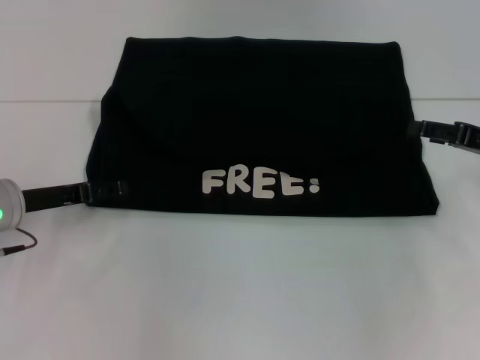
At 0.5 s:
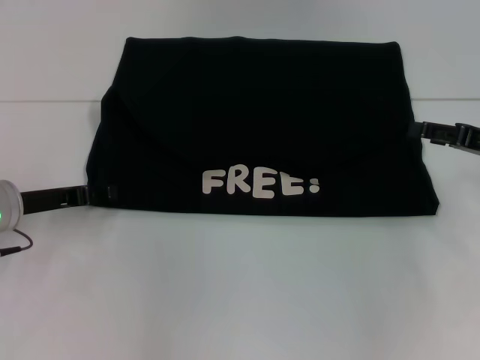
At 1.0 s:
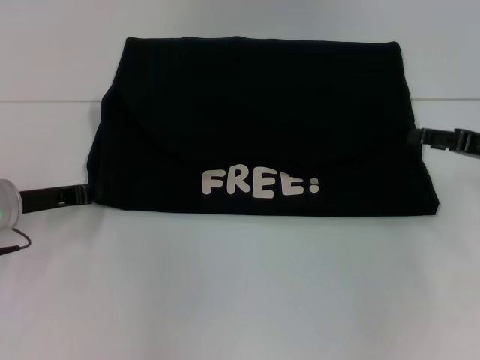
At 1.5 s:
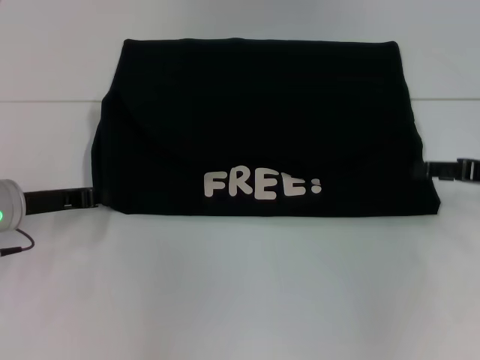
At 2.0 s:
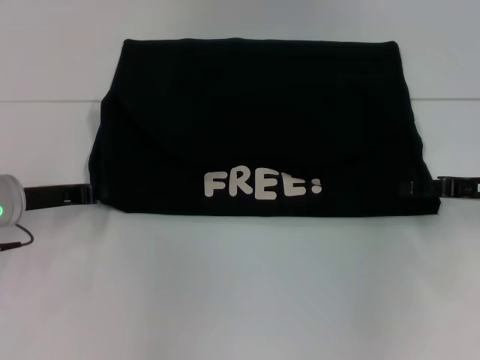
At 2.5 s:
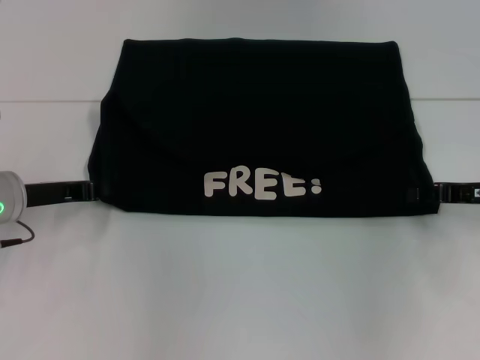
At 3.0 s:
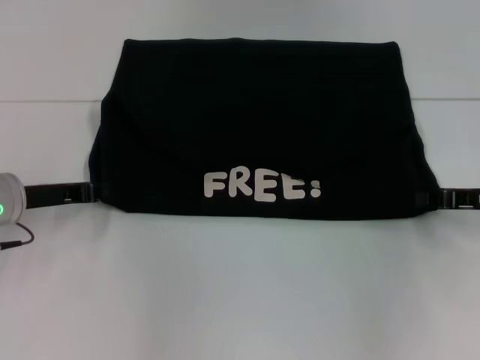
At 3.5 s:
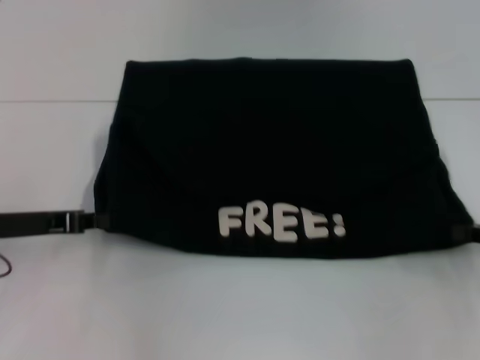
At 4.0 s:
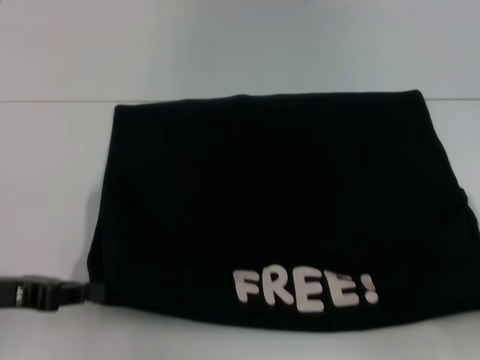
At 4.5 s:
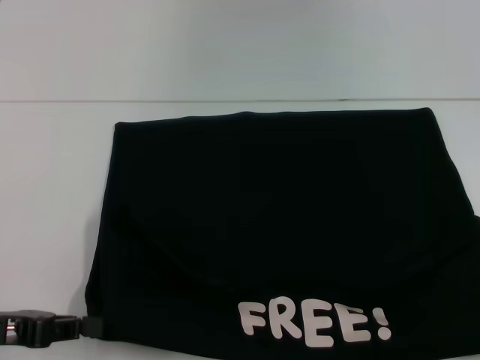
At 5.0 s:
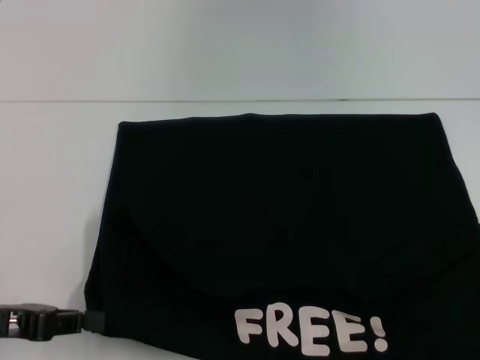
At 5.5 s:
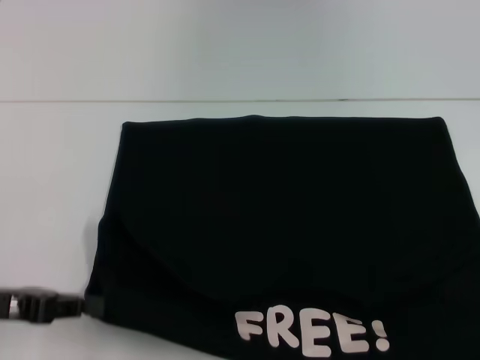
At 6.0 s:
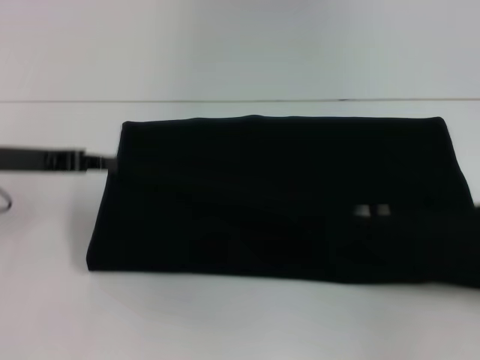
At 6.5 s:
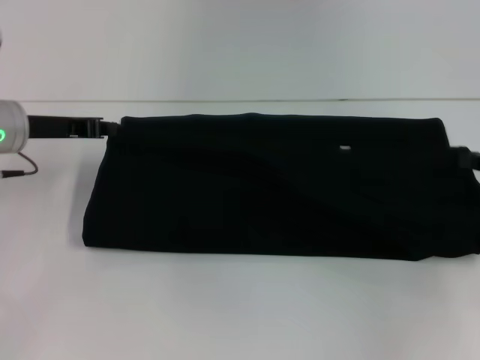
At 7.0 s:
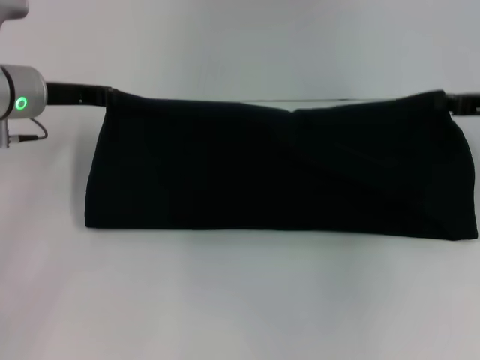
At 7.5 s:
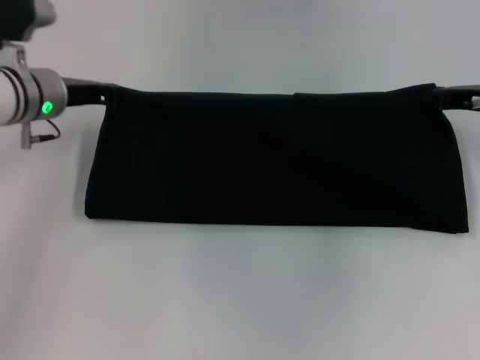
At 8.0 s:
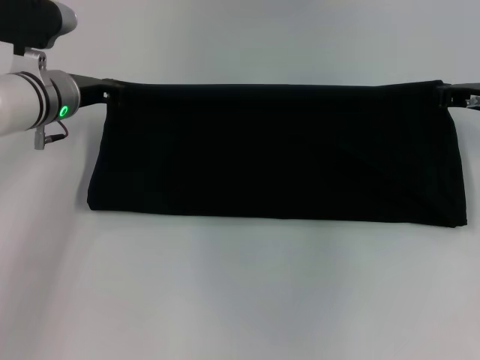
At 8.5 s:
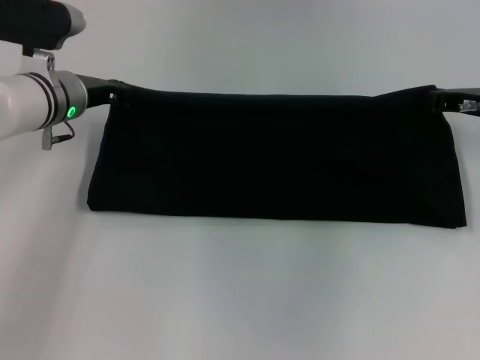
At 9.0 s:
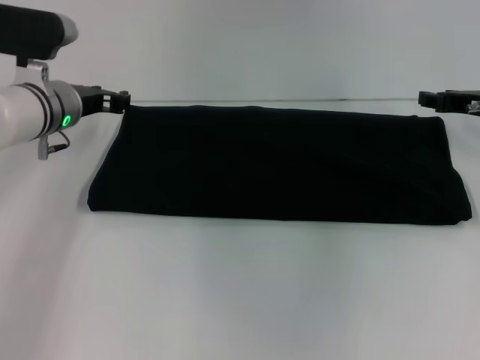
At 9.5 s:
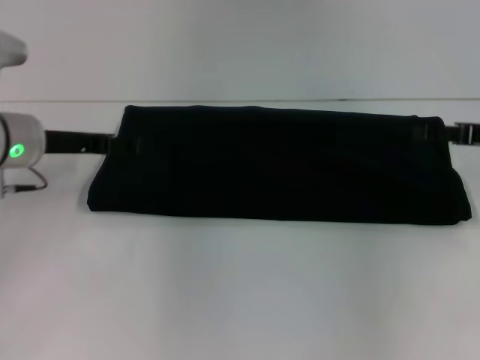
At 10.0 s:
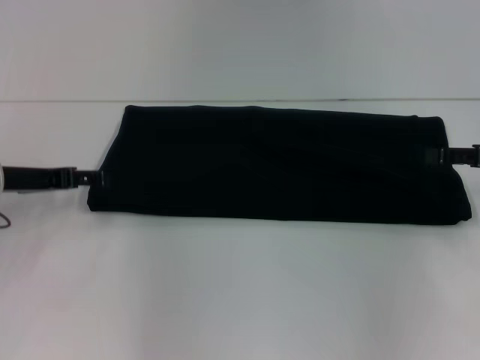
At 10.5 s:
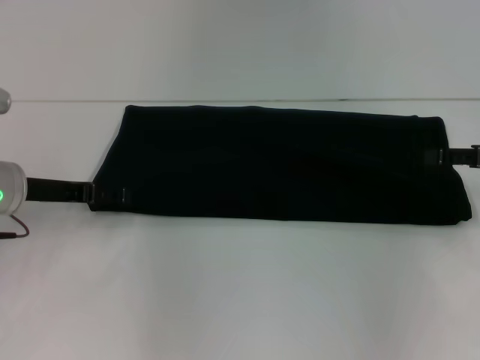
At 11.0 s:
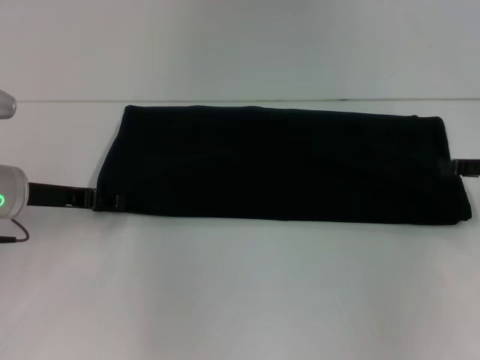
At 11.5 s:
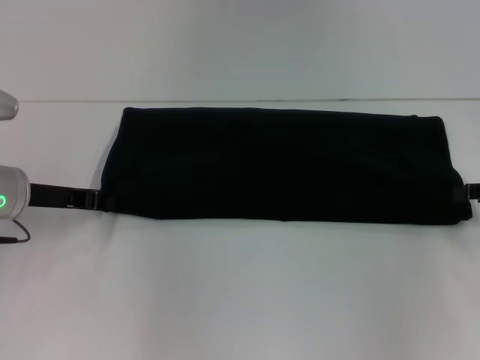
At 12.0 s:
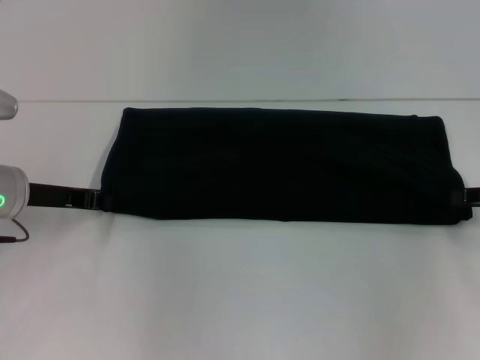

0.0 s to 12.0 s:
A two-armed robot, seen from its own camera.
Step, 0.0 to 4.5 s: Pull the clothes with your left hand.
Step, 0.0 to 4.5 s: Pull the clothes with your right hand.
Step, 5.0 to 9.0 s: Fold the clothes with your right hand.
0.0 to 2.0 s: The left gripper closes its fingers.
2.0 to 4.0 s: The right gripper shifts roughly 15 cm backward and to the right, and closes its fingers, while the left gripper heads backward, covering some 10 cm.
4.0 to 6.0 s: The left gripper heads forward, covering about 10 cm; the right gripper shifts by approximately 5 cm.
6.0 to 8.0 s: The right gripper is displaced forward and to the left by approximately 20 cm, while the left gripper heads forward and to the right, covering about 10 cm.
8.0 to 10.0 s: The right gripper goes some 10 cm backward and to the right, and opens. Meanwhile the left gripper is displaced backward and to the left by roughly 10 cm, and opens its fingers.
10.0 to 12.0 s: The left gripper closes its fingers.

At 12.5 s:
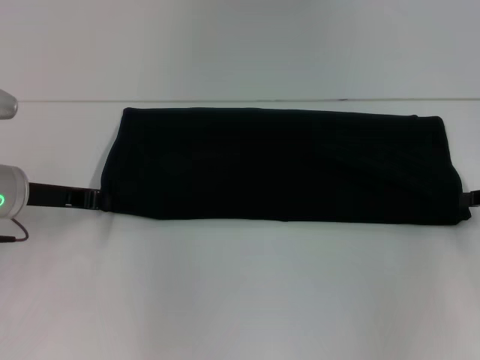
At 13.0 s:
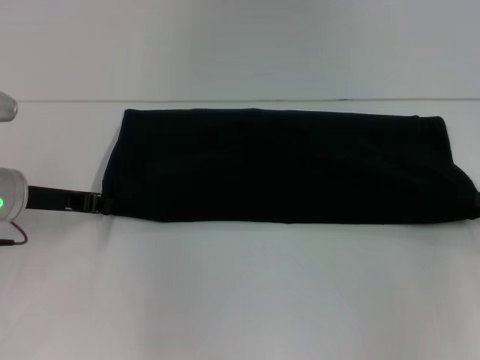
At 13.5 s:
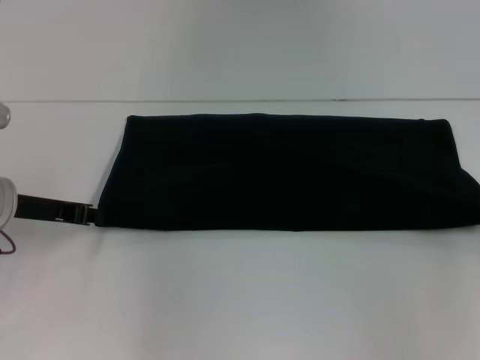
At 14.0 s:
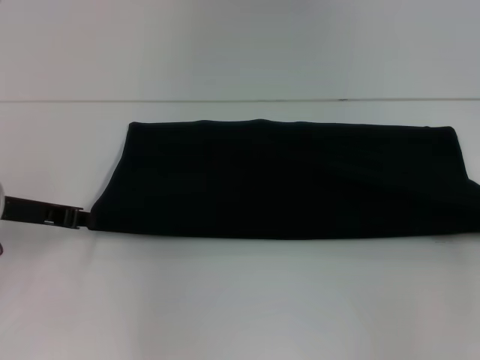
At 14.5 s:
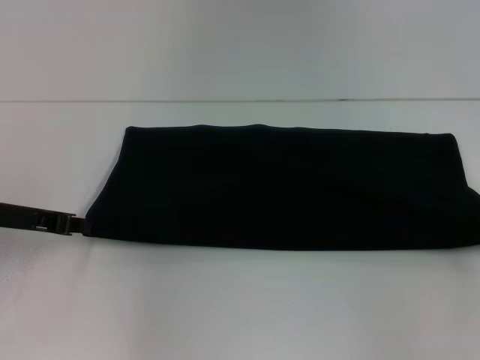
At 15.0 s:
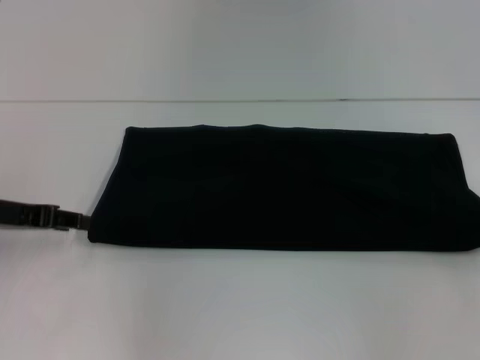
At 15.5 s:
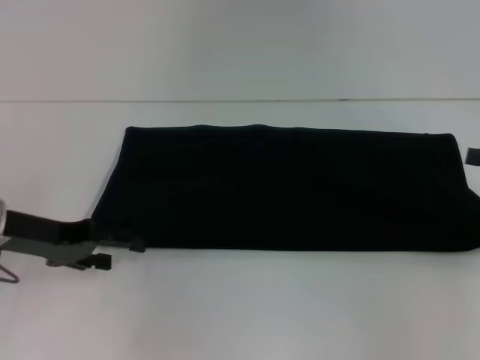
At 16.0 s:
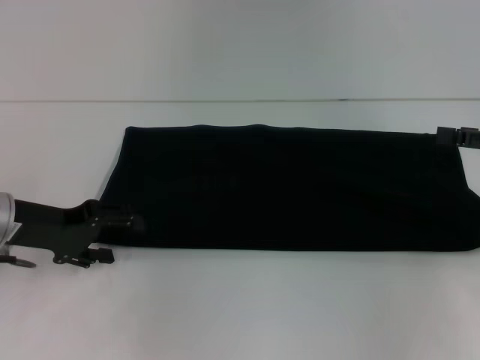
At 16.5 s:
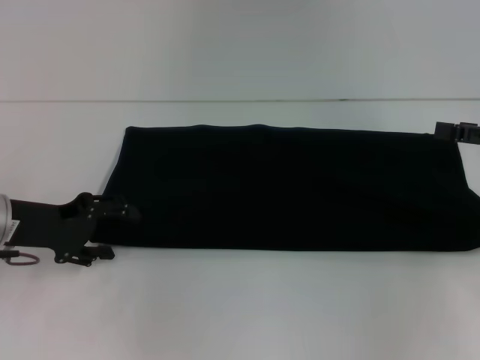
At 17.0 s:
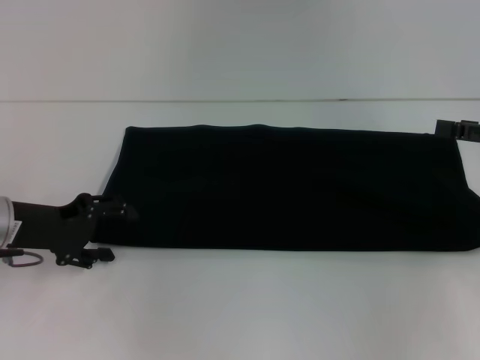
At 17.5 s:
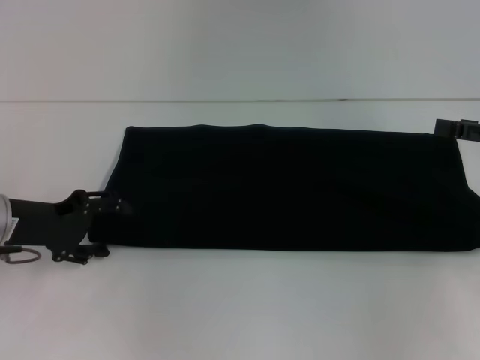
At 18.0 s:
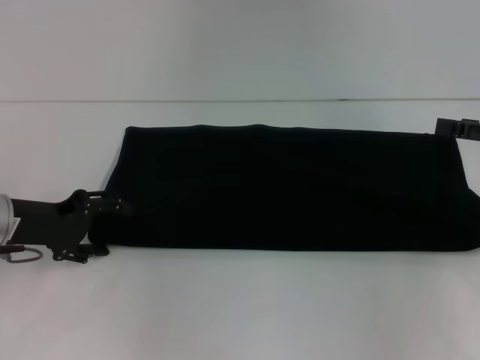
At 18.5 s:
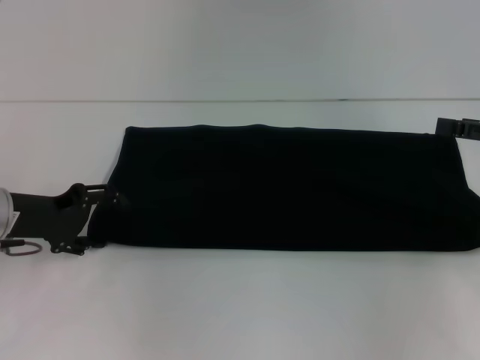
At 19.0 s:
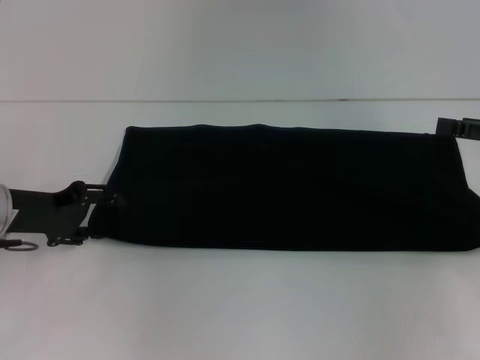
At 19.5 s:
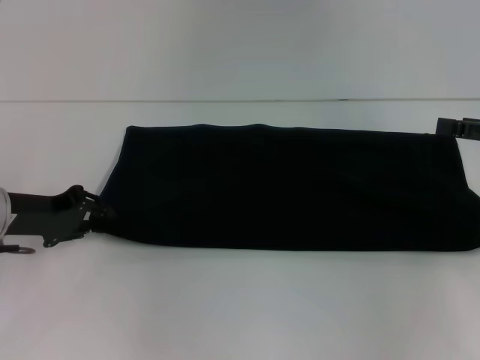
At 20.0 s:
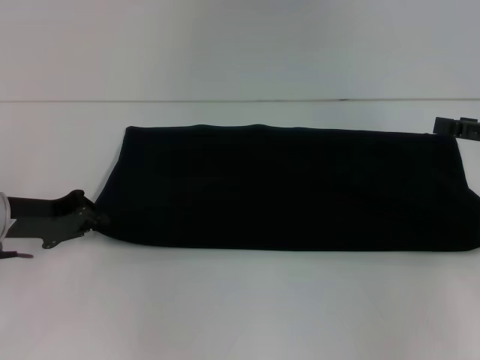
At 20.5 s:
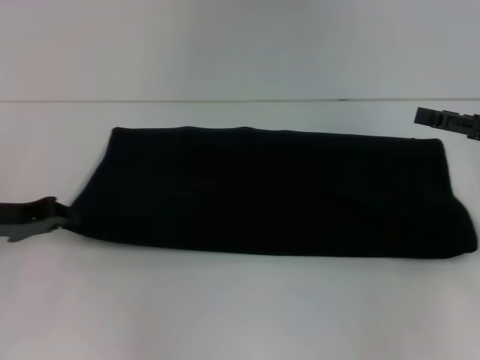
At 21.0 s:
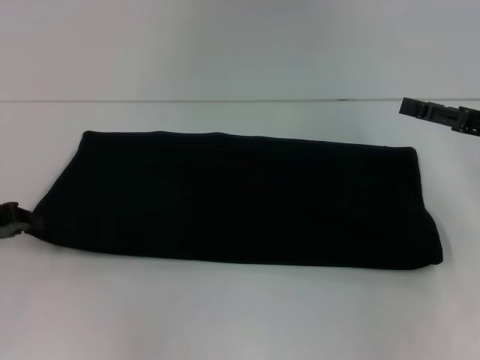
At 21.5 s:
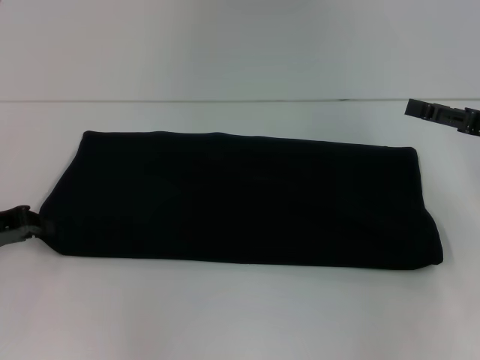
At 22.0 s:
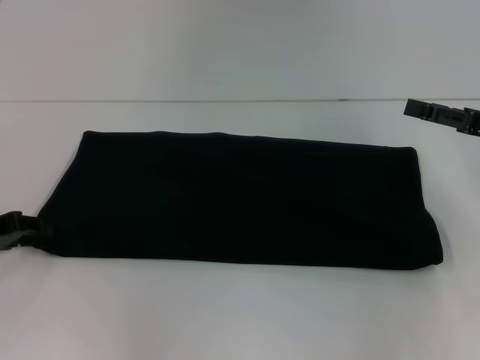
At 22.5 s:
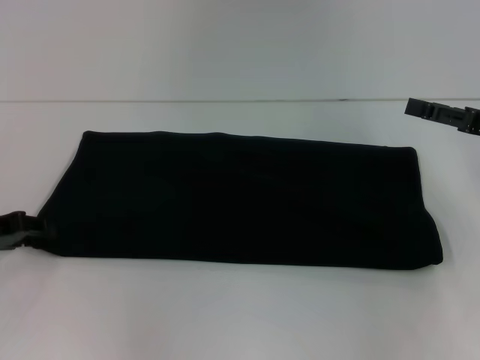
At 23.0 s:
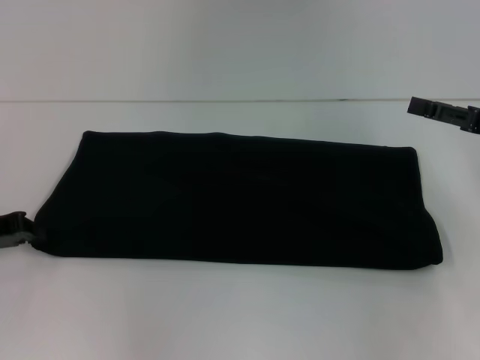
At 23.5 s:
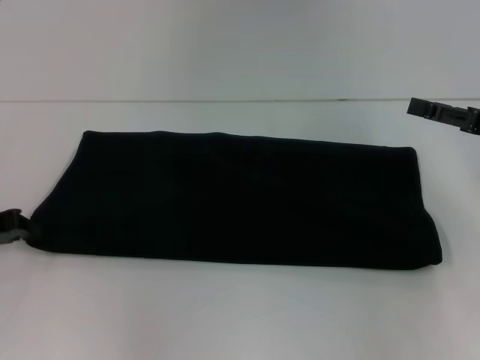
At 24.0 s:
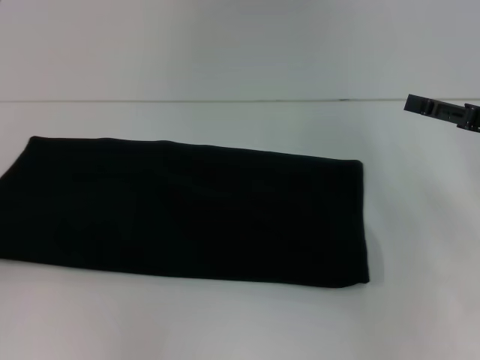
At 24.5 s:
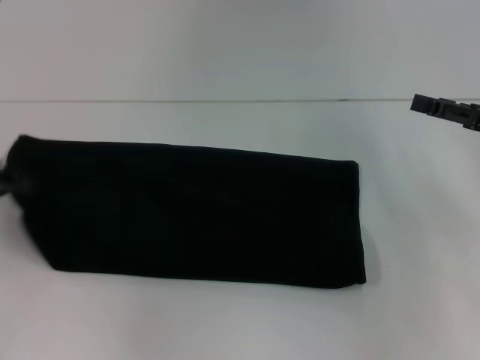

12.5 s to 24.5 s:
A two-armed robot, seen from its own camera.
12.5 to 14.5 s: The right gripper changes place by roughly 5 cm.
14.5 to 16.5 s: The left gripper opens its fingers; the right gripper travels upward by some 5 cm, and opens.
16.5 to 18.5 s: The grippers make only small movements.
18.5 to 20.5 s: The left gripper closes up.
20.5 to 22.5 s: The left gripper opens.
22.5 to 24.5 s: The left gripper moves upward, approximately 5 cm, and closes.

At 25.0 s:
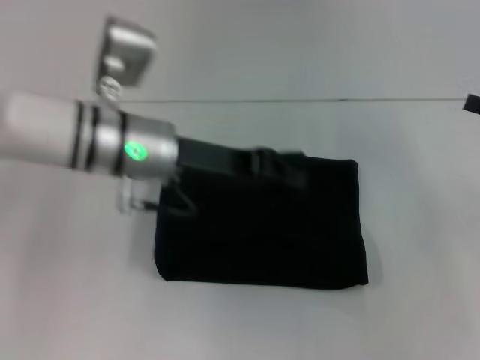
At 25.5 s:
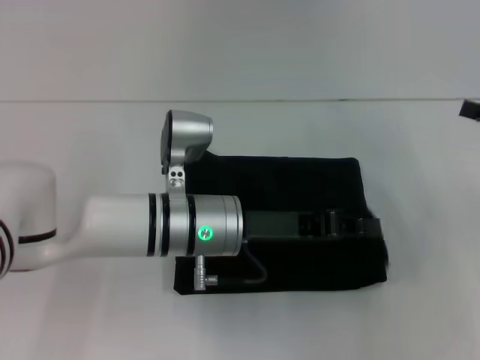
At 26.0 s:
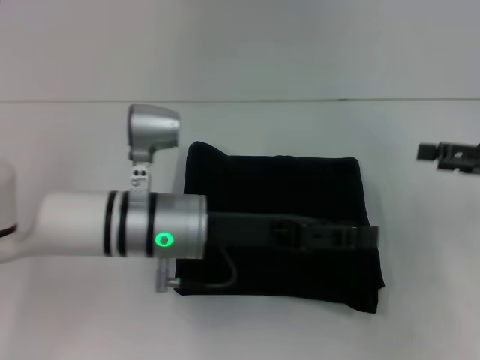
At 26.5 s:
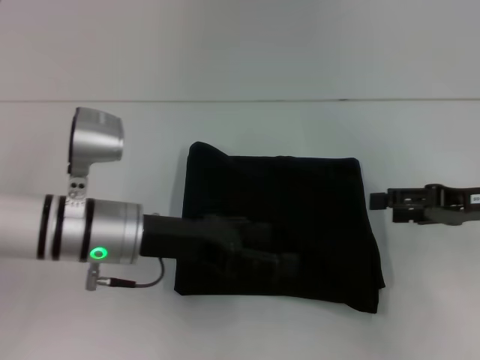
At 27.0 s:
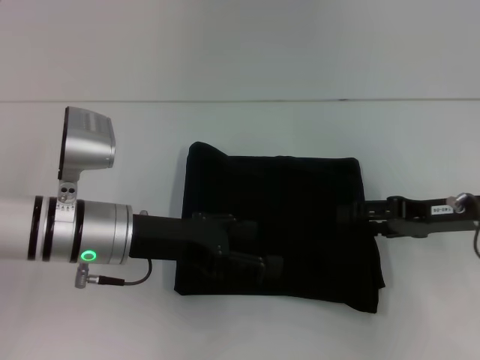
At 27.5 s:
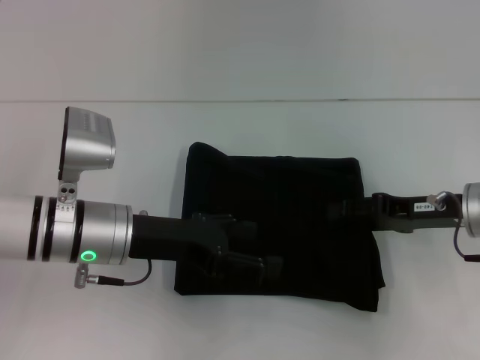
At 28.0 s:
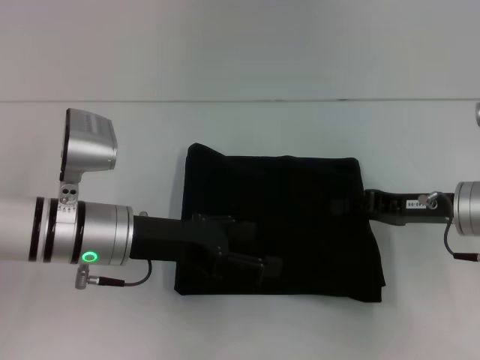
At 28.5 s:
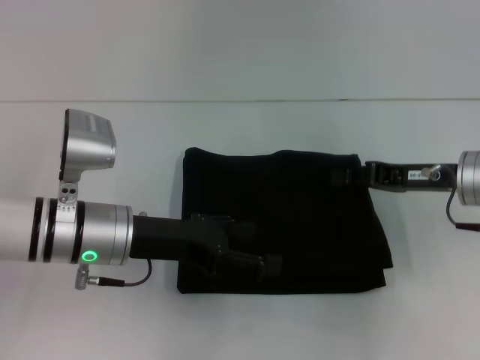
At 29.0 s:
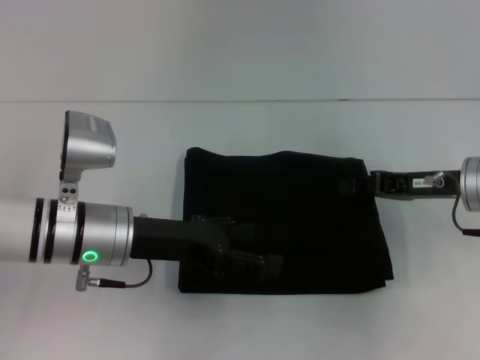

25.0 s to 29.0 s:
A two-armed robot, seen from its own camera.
25.0 to 27.0 s: The left gripper travels downward and backward by about 10 cm, and opens up. The right gripper heads to the left, covering some 10 cm.
27.0 to 29.0 s: The right gripper closes its fingers.
